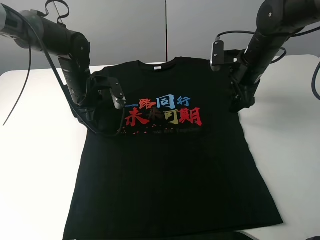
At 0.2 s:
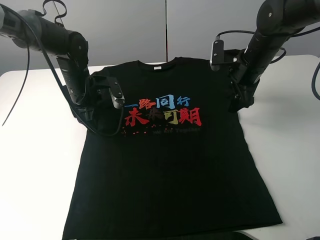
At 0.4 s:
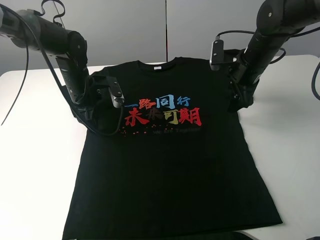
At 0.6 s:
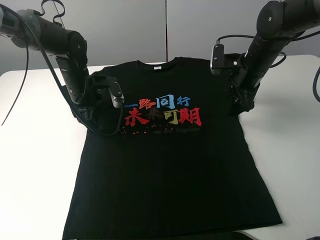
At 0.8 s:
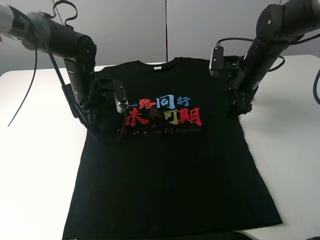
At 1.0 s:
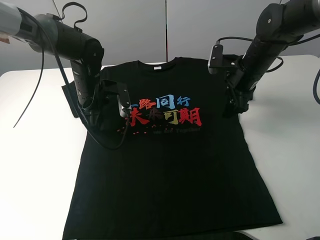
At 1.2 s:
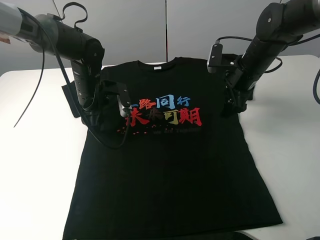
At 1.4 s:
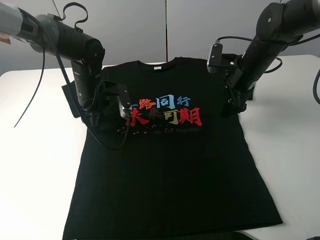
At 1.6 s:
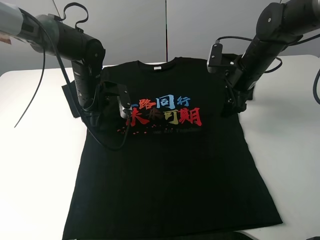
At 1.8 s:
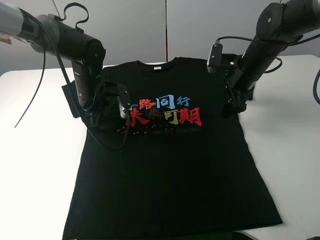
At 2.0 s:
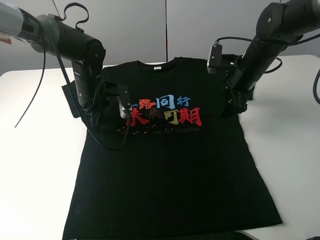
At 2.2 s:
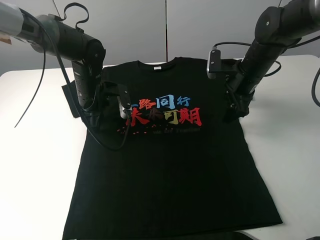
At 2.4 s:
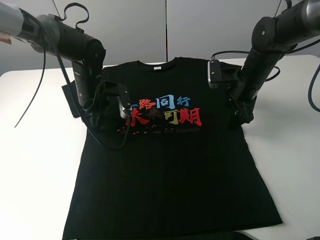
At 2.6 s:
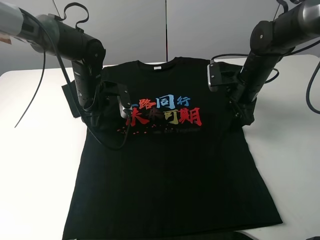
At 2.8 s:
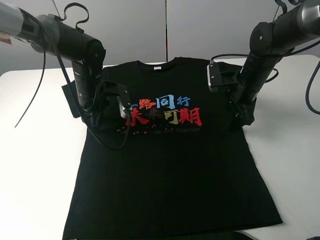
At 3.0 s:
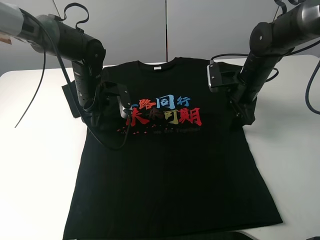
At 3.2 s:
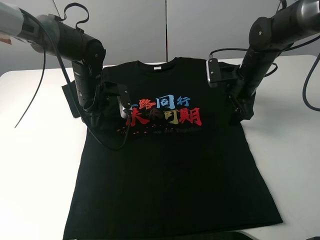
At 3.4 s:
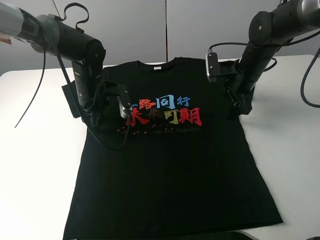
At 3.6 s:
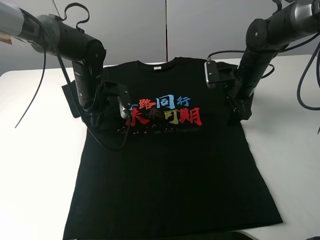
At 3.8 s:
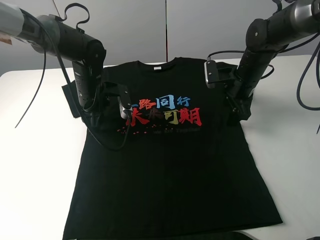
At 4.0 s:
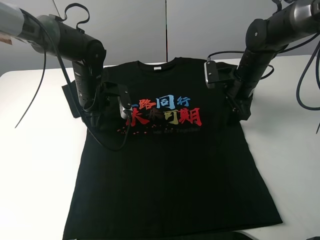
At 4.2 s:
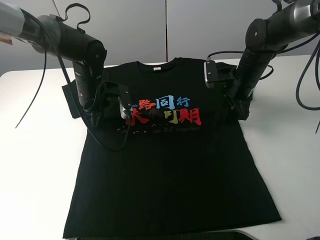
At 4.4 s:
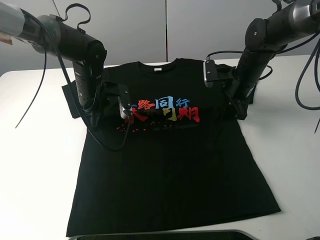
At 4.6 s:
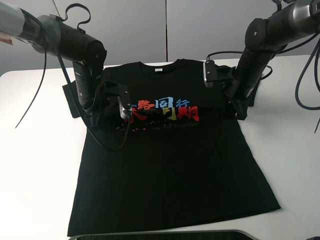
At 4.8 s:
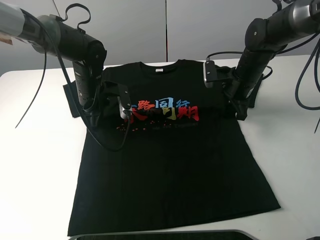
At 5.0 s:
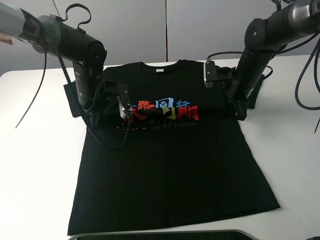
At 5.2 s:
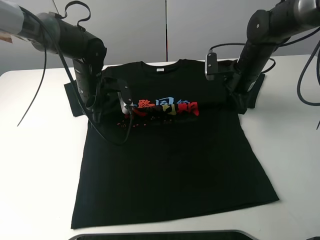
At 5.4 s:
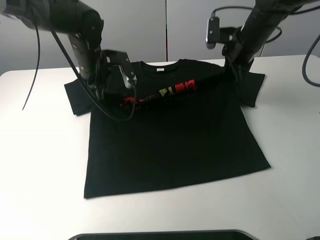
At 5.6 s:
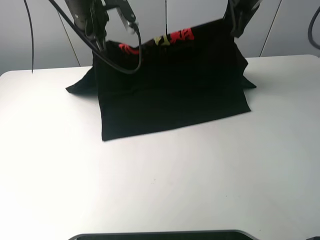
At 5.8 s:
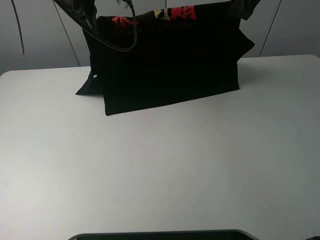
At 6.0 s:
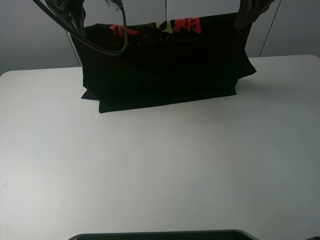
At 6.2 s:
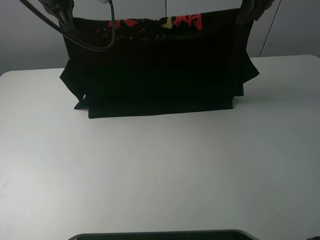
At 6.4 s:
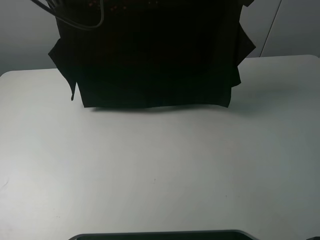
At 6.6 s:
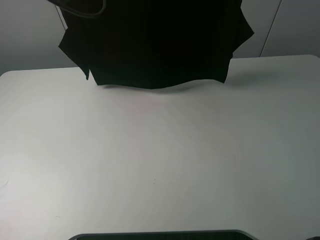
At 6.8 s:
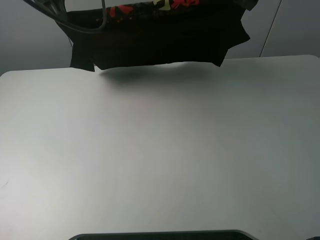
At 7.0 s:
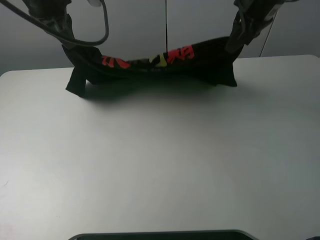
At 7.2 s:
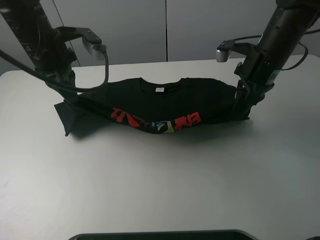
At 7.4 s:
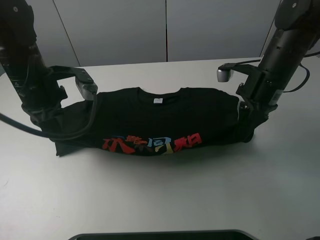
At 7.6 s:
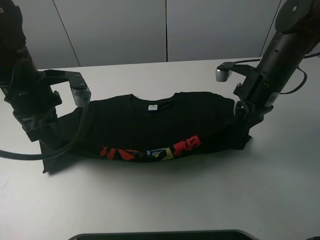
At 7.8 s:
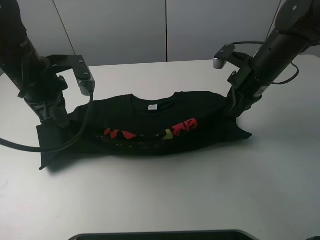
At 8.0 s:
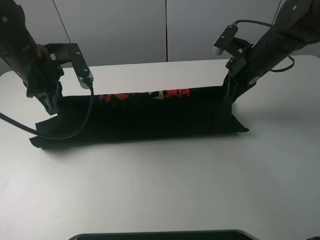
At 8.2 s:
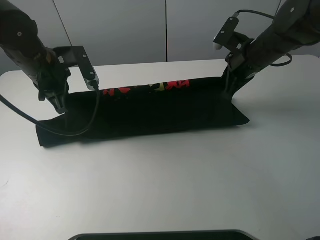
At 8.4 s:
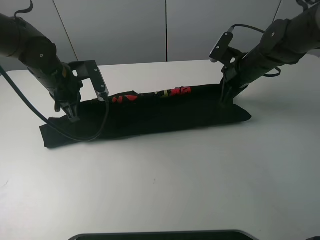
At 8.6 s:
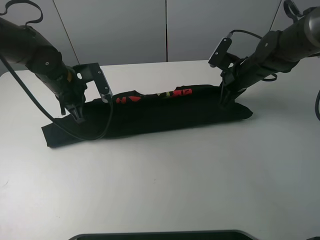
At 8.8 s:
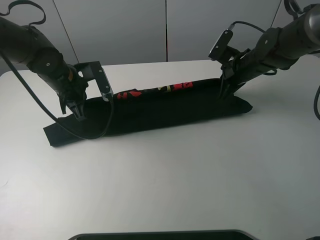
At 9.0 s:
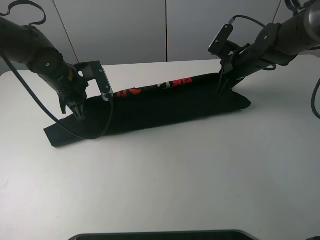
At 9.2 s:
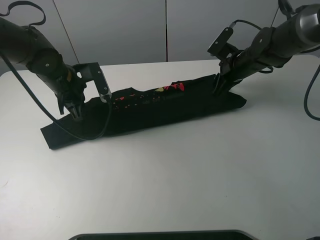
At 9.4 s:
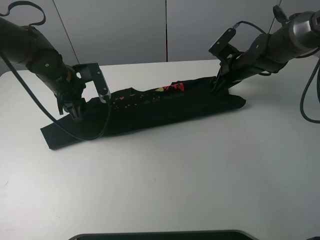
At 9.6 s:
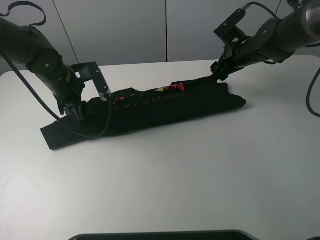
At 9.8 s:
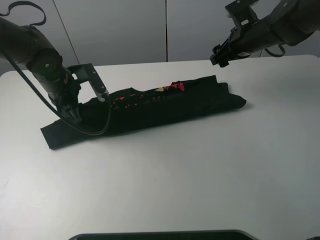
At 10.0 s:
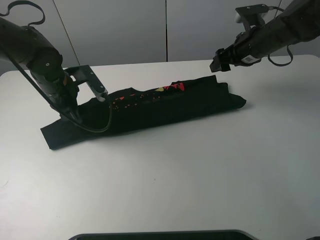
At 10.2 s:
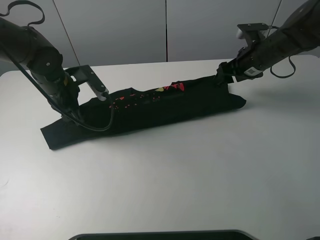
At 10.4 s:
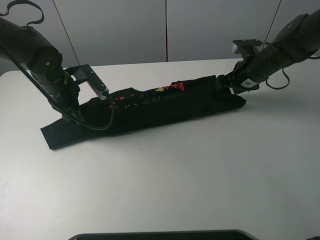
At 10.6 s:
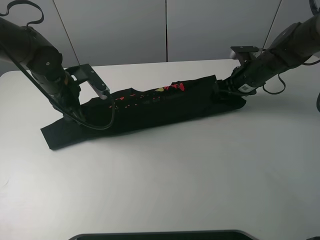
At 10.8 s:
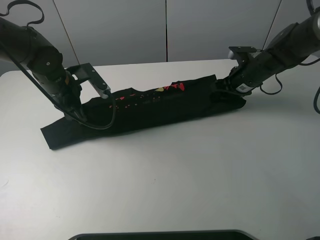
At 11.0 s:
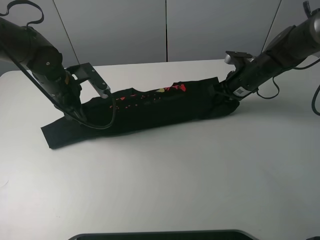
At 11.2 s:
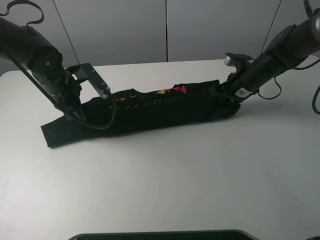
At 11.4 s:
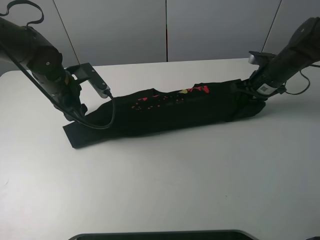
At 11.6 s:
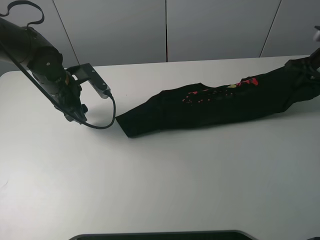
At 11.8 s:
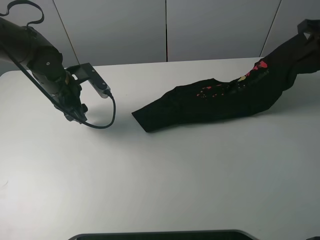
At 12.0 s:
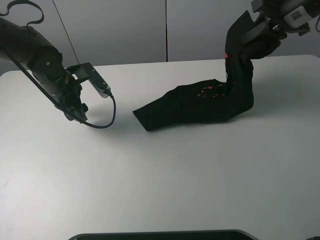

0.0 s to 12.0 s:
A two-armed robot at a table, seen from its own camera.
Task of the whole recording: fold the clothes on the table.
Step, 0.0 to 4.2 s: Lift the black T-shirt with the left gripper.
Step, 4.6 to 9.8 s: Fold the black T-shirt downward with the left gripper.
Step, 10.0 to 11.0 s: Grasp the black T-shirt with the right gripper.
0.0 to 3.0 s: There are only small adjustments of the grippers.
3.0 to 4.4 s: The left gripper closes, while the right gripper closes.
4.4 to 6.0 s: Both grippers travel together upward, about 20 cm.
6.0 to 7.6 s: The right gripper goes some 20 cm downward and backward; the left gripper is displaced backward, downward and to the left by approximately 20 cm.
7.6 to 9.0 s: The left gripper goes about 10 cm forward and downward, while the right gripper heads forward, covering some 10 cm.
9.0 to 10.4 s: The left gripper opens. Meanwhile the right gripper goes upward and returns, some 5 cm each way, and opens.
10.4 to 12.0 s: The right gripper is displaced upward by roughly 15 cm, and closes up.

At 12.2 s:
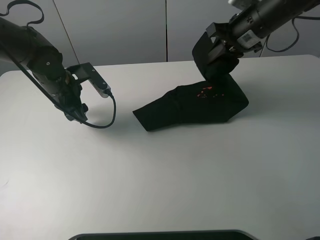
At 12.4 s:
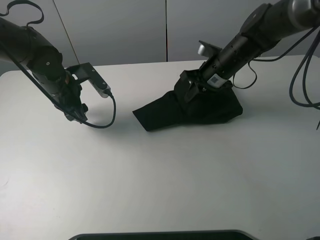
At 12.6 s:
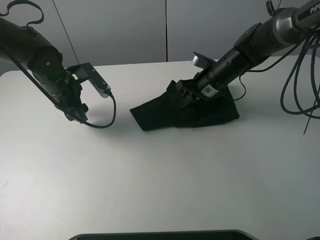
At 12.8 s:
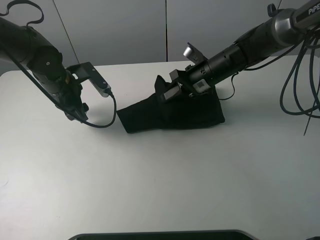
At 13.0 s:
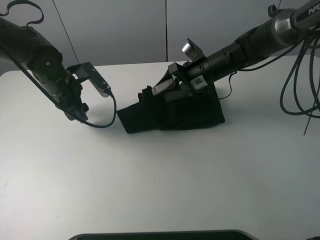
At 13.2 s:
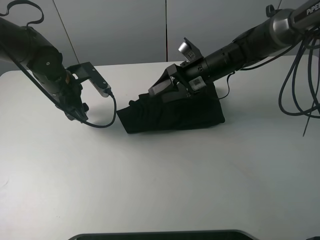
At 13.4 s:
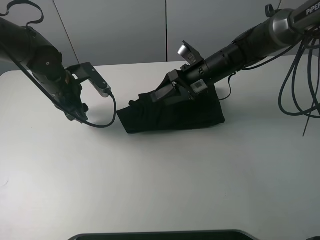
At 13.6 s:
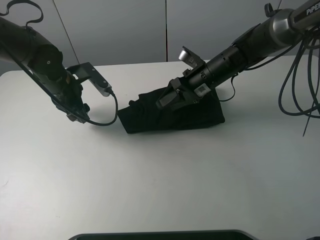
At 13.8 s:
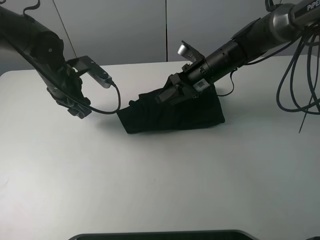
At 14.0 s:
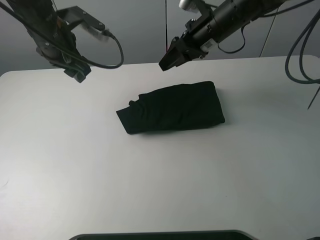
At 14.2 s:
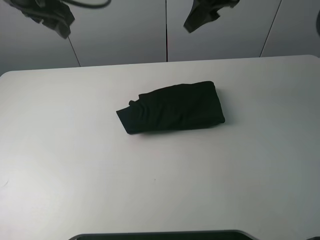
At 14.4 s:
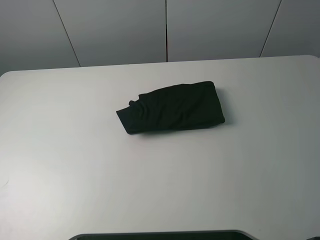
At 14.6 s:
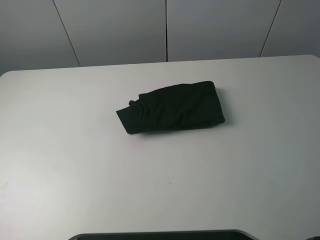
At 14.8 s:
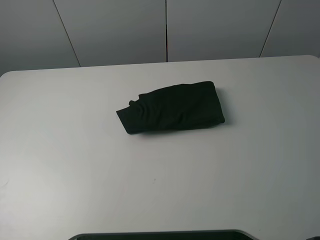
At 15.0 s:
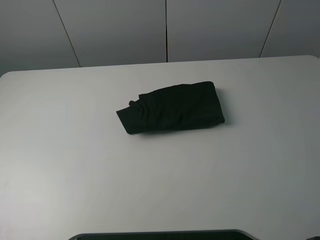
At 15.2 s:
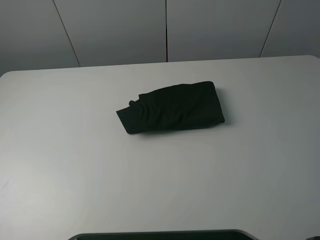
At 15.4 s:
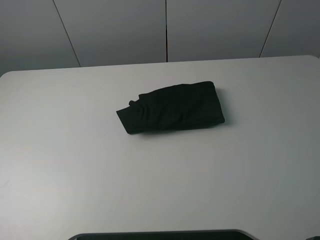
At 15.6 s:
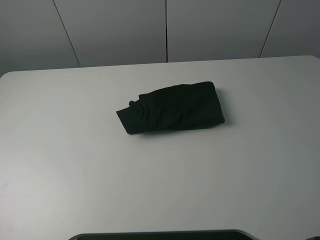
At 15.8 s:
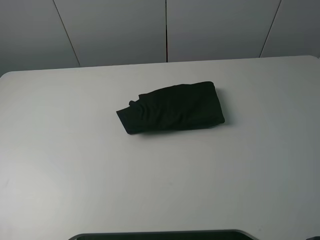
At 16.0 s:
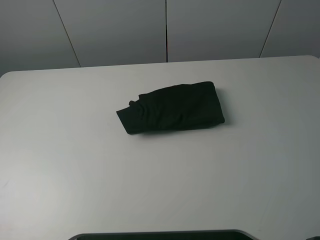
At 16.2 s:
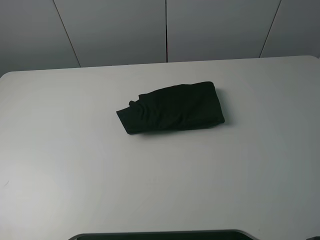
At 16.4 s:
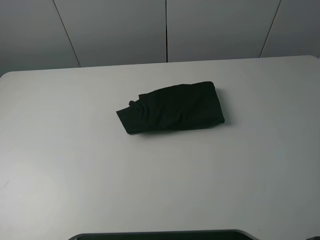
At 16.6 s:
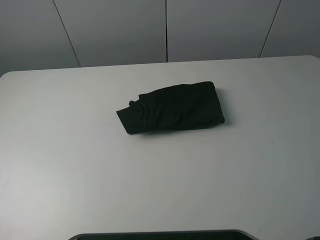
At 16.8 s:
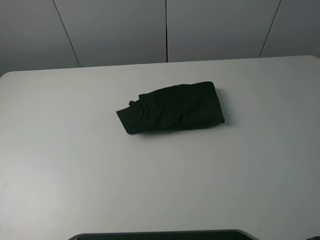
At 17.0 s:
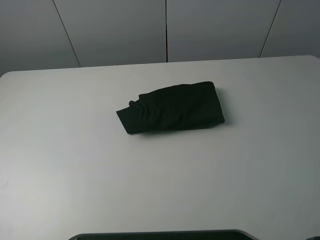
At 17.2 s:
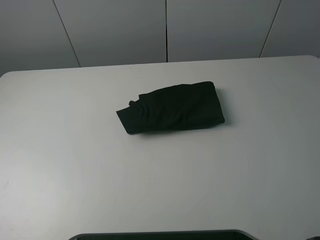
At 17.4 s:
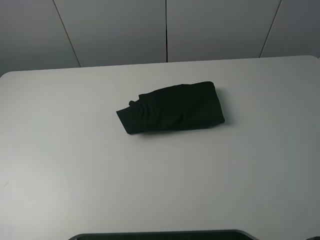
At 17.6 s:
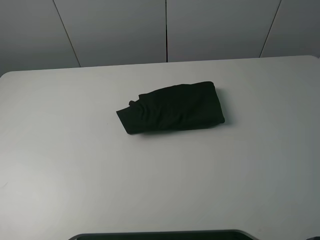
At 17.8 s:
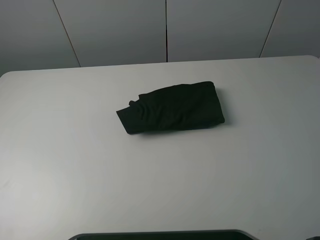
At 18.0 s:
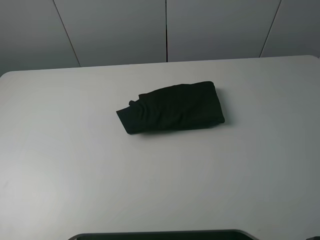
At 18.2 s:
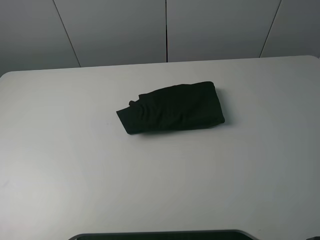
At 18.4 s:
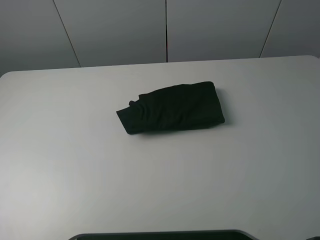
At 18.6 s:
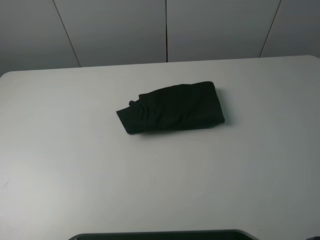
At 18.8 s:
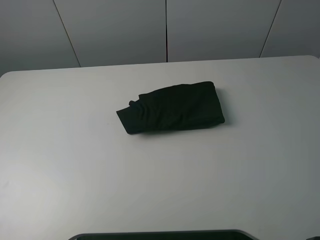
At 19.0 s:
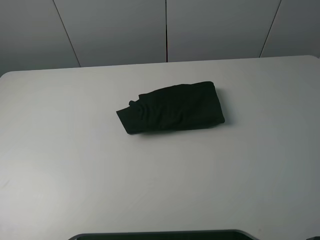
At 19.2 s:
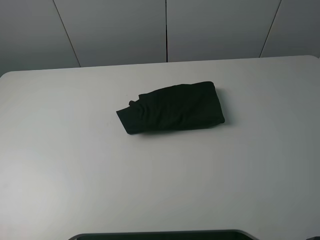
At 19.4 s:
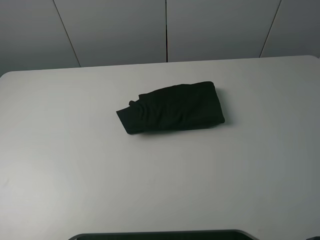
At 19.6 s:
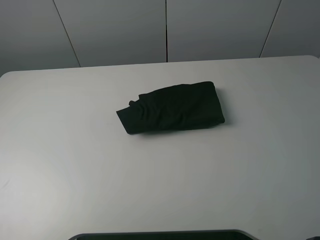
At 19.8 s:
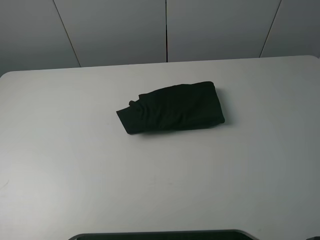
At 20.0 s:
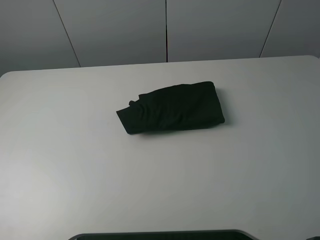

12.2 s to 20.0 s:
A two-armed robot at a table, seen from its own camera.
Task of the whole recording: fold the clothes on the table.
Step, 12.2 to 13.4 s: Fold the black T-shirt from right to left with right gripper.
12.2 to 13.8 s: The right gripper heads downward and to the left, covering about 10 cm, and opens its fingers.
13.8 to 15.4 s: The right gripper moves backward, upward and to the right, approximately 70 cm. Meanwhile the left gripper is displaced backward, upward and to the left by some 60 cm.
18.4 to 20.0 s: Both grippers stay about where they are.
